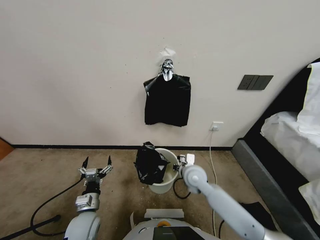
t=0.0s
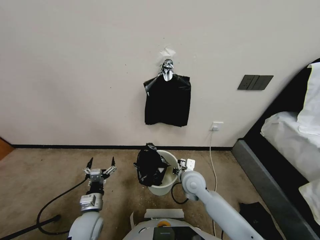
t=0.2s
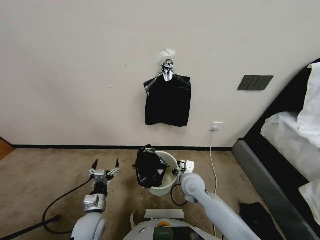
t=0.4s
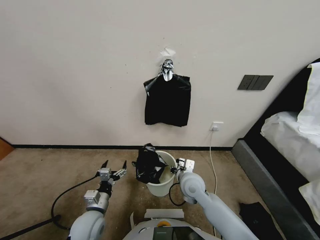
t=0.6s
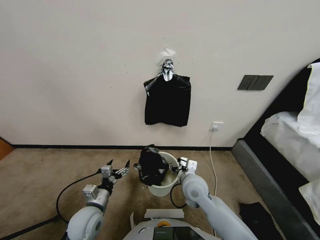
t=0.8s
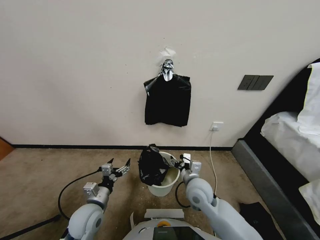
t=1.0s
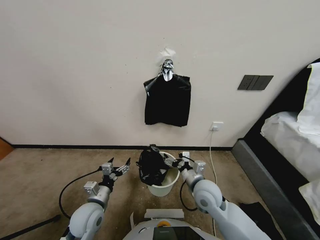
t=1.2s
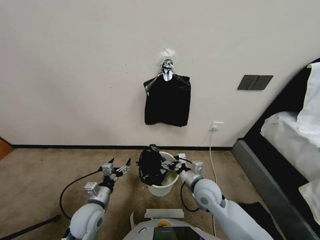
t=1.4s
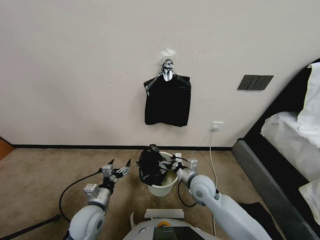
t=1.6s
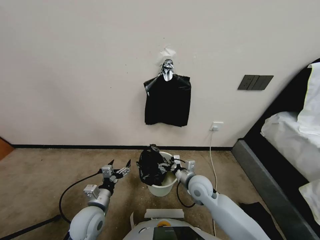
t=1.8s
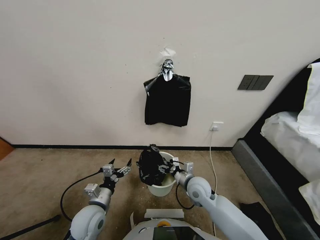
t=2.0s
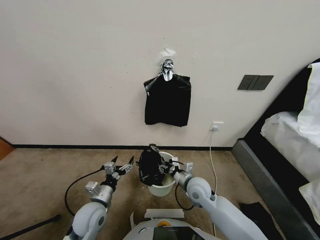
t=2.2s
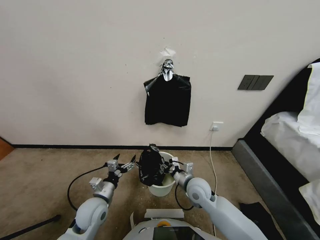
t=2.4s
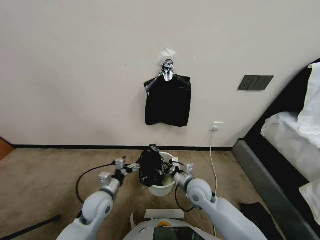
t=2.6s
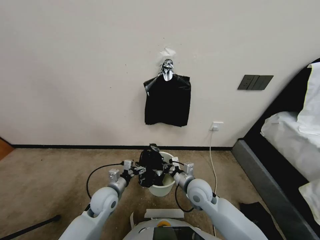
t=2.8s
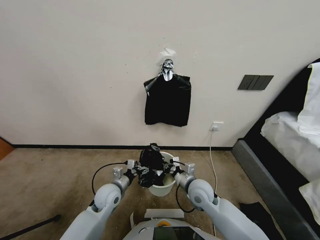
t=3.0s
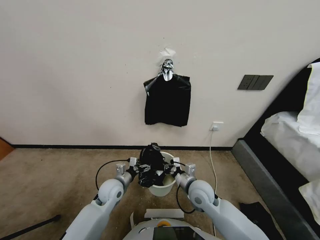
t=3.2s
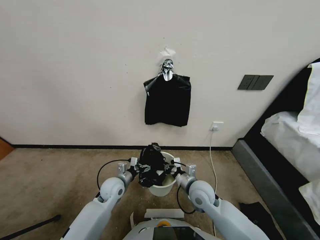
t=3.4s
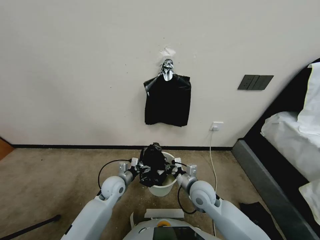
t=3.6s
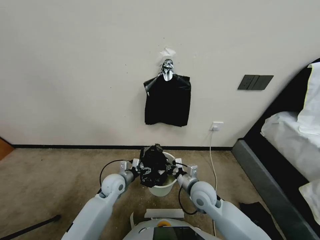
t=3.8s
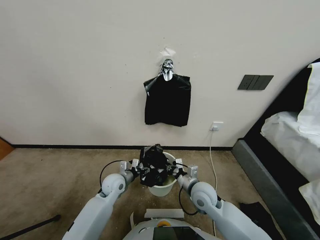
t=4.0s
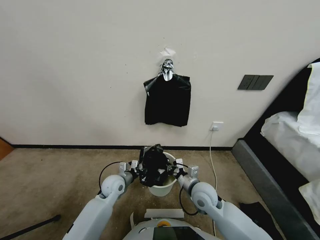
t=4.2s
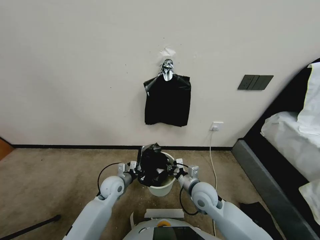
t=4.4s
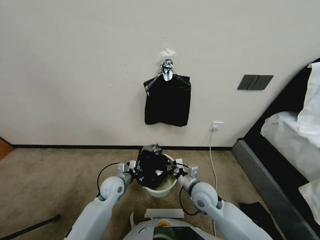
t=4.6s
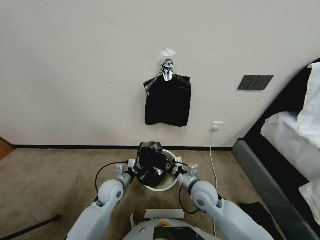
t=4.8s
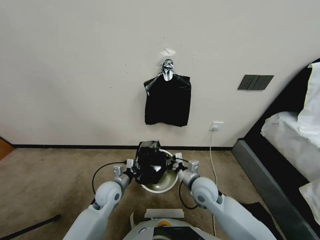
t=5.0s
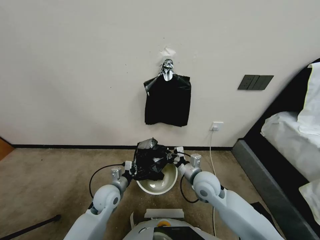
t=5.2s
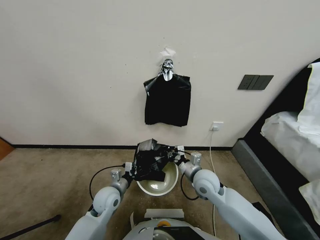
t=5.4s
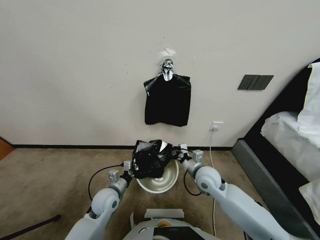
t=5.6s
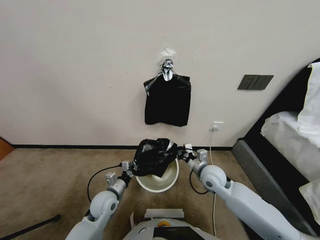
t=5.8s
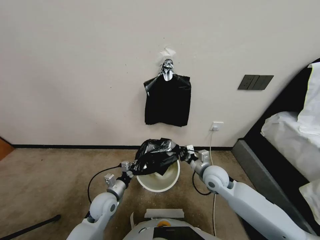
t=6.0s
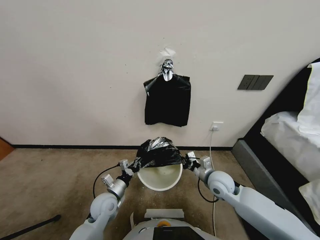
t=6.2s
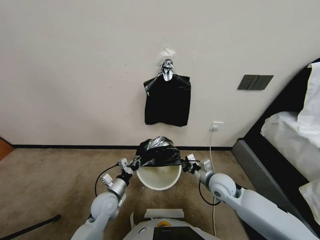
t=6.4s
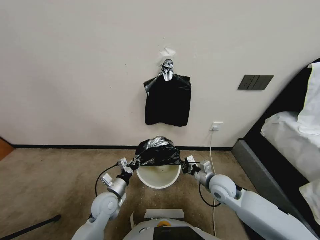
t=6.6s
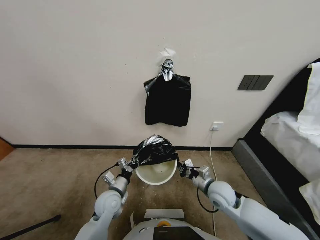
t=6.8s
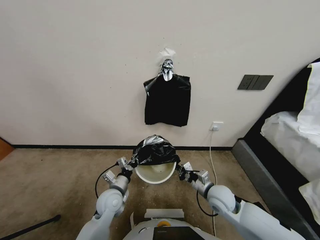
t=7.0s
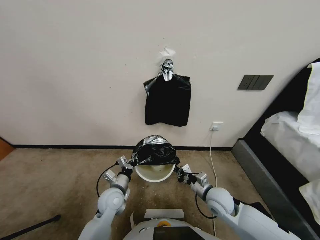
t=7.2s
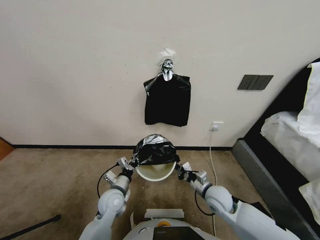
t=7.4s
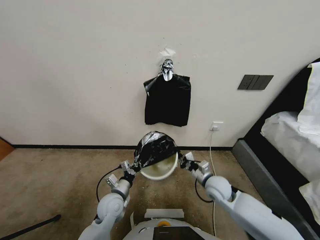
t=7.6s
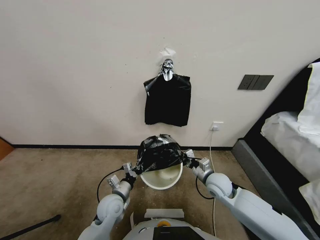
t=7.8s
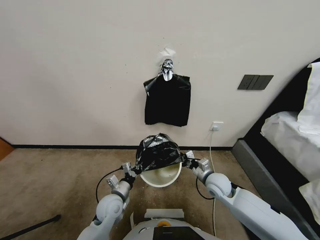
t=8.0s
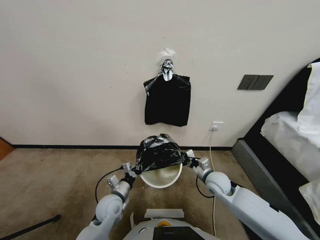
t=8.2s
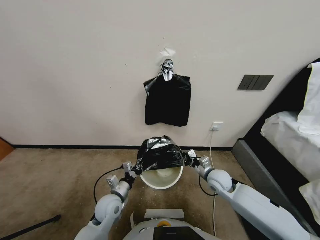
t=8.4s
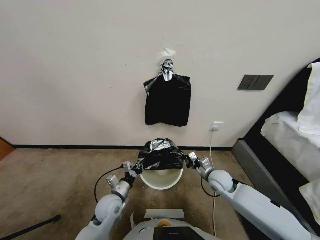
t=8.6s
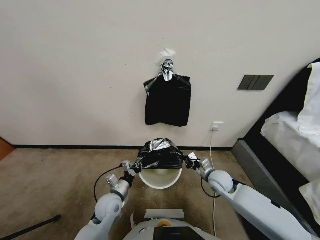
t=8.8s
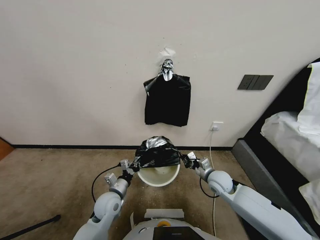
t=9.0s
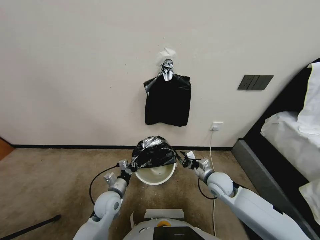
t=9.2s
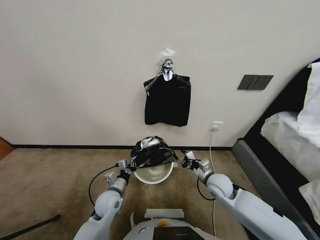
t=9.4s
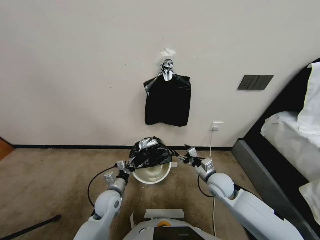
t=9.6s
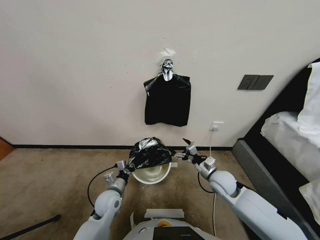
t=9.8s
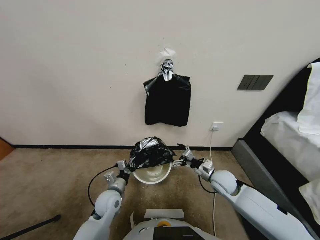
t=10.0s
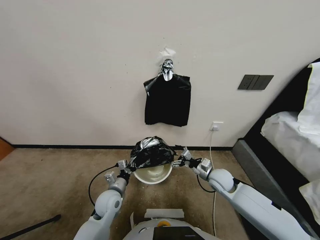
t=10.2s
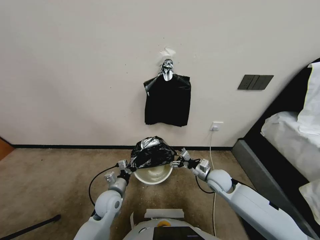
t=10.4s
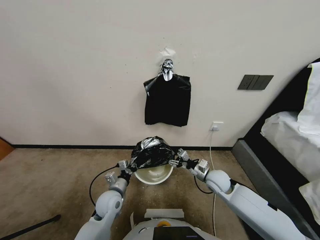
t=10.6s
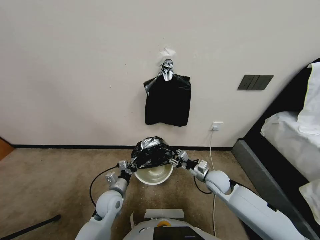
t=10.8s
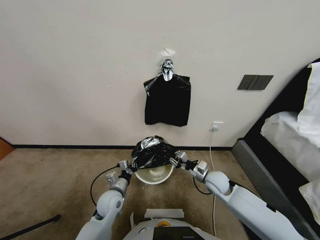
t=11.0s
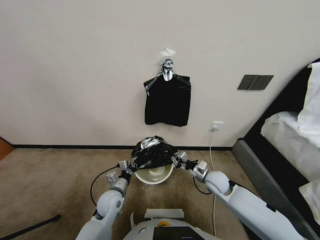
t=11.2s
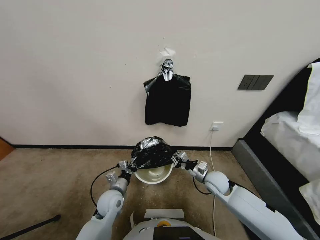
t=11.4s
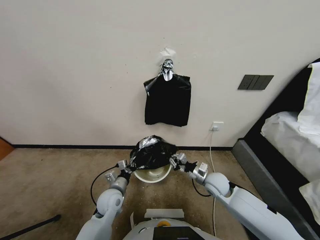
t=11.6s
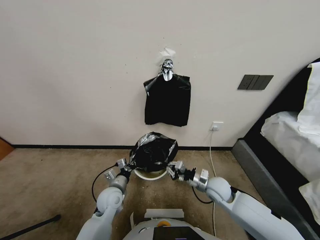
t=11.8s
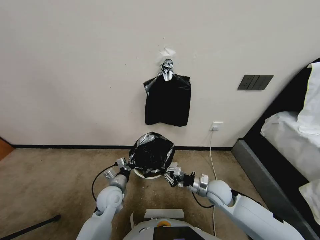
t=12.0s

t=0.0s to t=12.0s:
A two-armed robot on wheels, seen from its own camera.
Task of the whole recording: Place a trash bag onto the trash bin.
t=0.0s to t=1.6s: The right gripper opens its fingers.
t=1.6s to t=3.0s: The left gripper travels forward by some 10 cm; the right gripper closes up.
t=3.0s to t=4.4s: The left gripper closes up.
t=4.4s to t=6.0s: The left gripper is displaced backward by approximately 5 cm. Meanwhile the right gripper shifts roughly 5 cm to the right.
t=7.6s to t=9.0s: The grippers move only a little.
t=9.0s to t=10.4s: The right gripper opens up.
t=10.4s to t=12.0s: The right gripper moves about 5 cm, and closes.

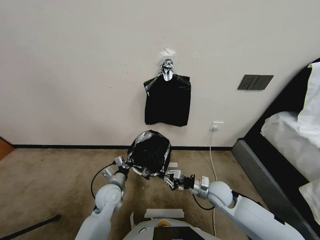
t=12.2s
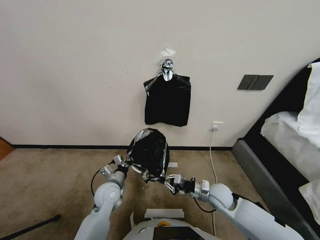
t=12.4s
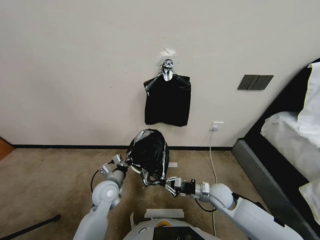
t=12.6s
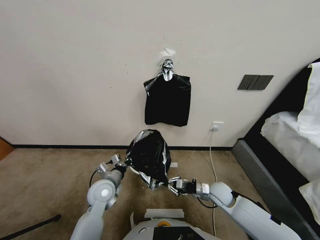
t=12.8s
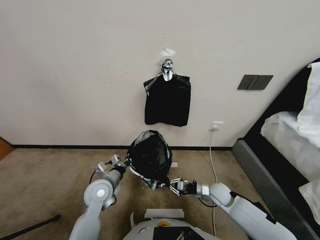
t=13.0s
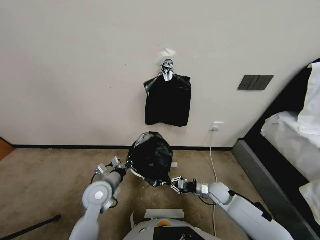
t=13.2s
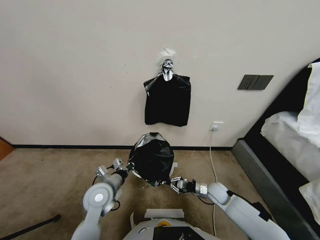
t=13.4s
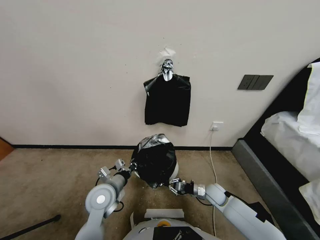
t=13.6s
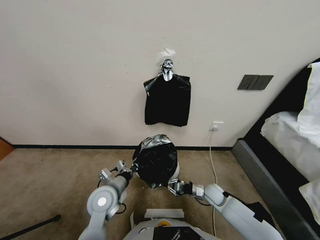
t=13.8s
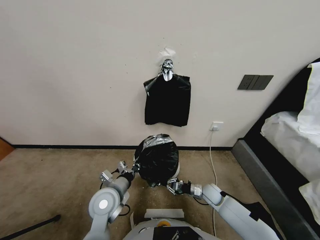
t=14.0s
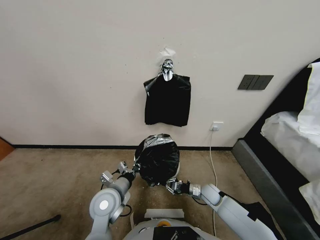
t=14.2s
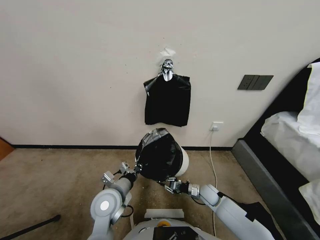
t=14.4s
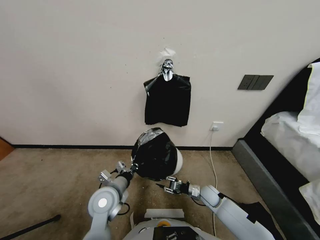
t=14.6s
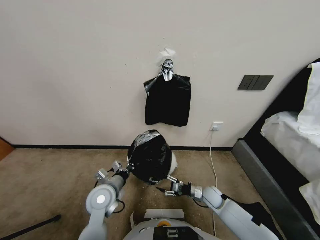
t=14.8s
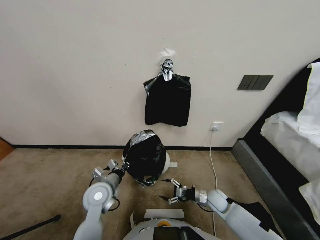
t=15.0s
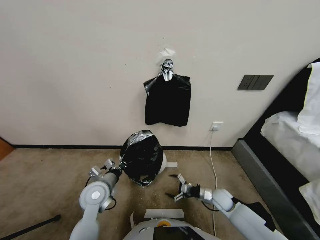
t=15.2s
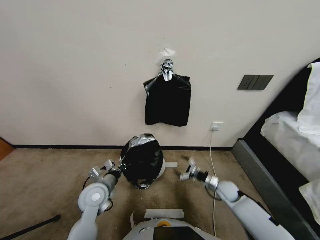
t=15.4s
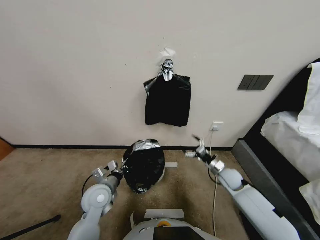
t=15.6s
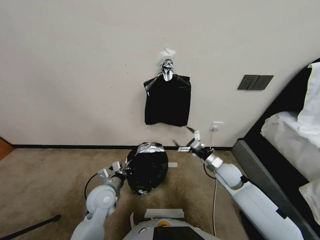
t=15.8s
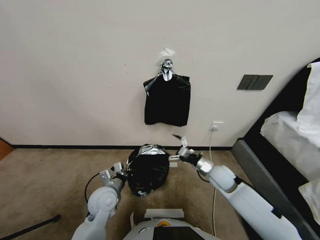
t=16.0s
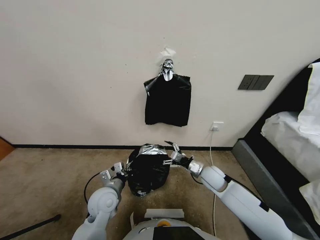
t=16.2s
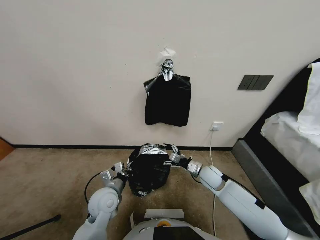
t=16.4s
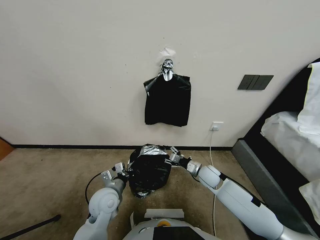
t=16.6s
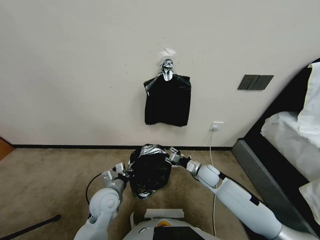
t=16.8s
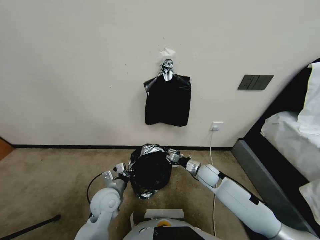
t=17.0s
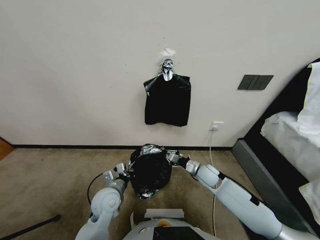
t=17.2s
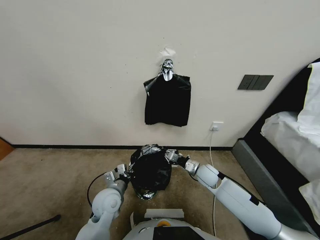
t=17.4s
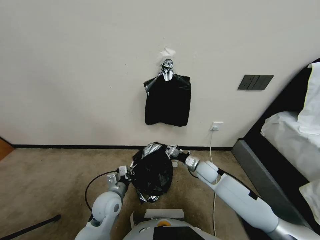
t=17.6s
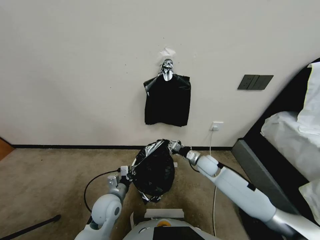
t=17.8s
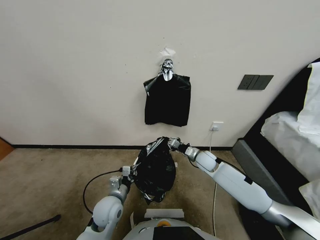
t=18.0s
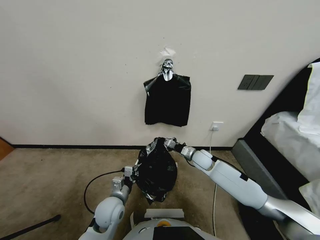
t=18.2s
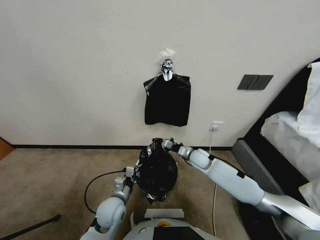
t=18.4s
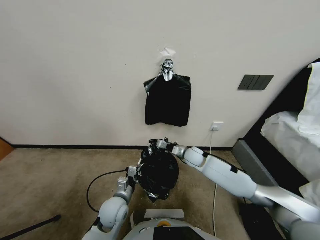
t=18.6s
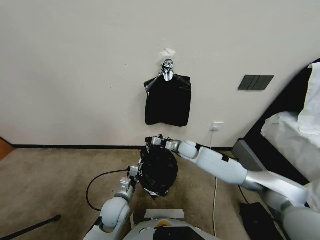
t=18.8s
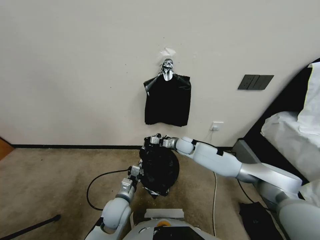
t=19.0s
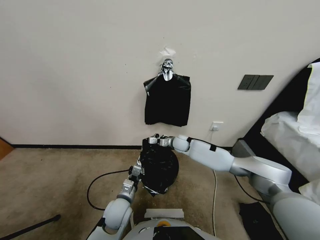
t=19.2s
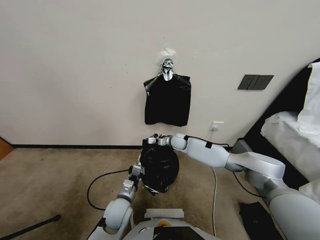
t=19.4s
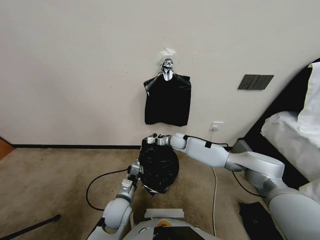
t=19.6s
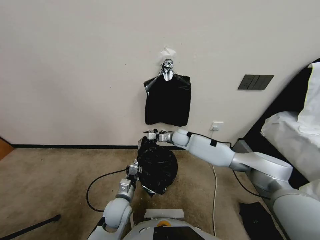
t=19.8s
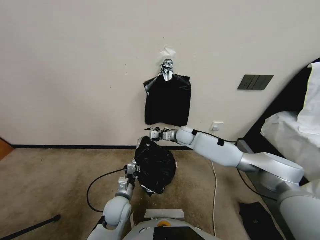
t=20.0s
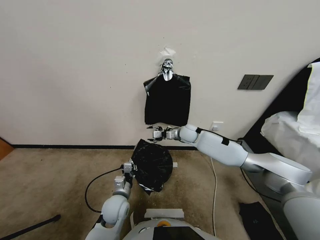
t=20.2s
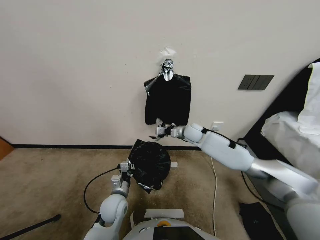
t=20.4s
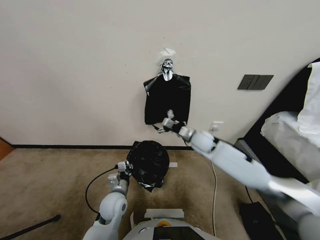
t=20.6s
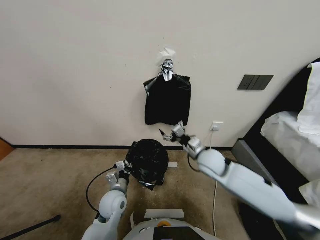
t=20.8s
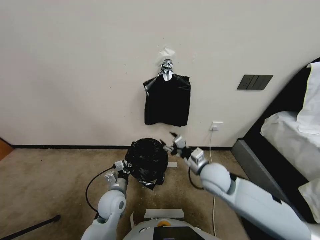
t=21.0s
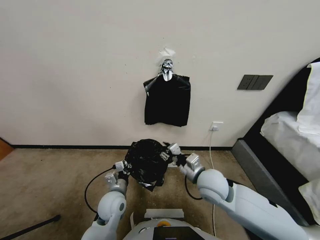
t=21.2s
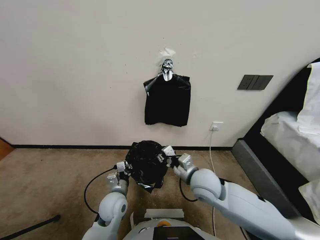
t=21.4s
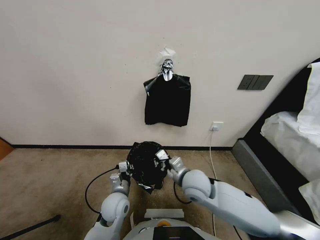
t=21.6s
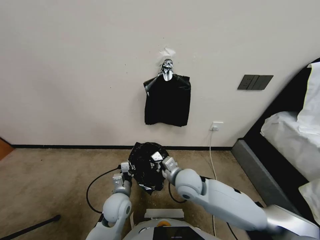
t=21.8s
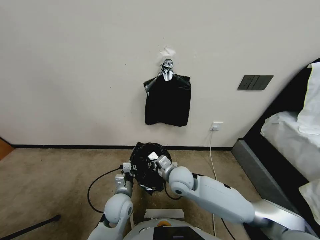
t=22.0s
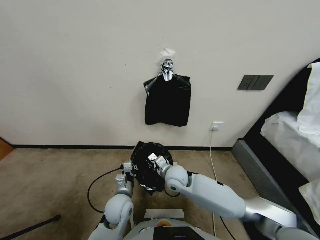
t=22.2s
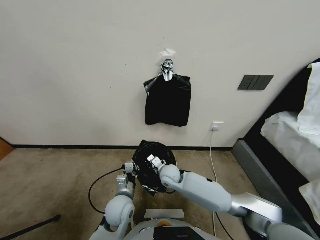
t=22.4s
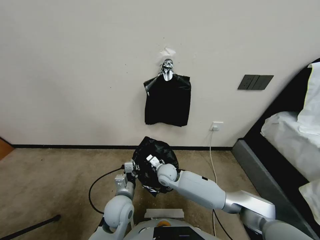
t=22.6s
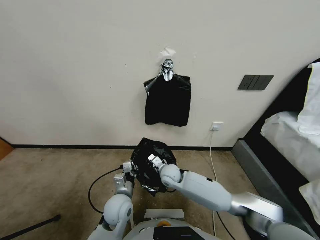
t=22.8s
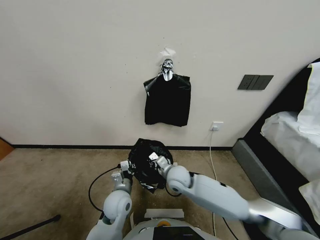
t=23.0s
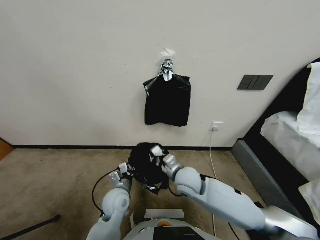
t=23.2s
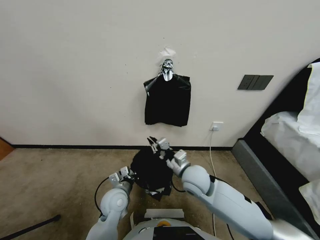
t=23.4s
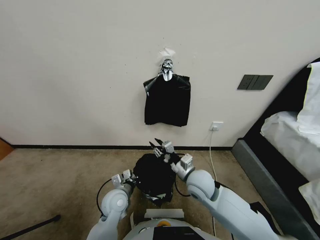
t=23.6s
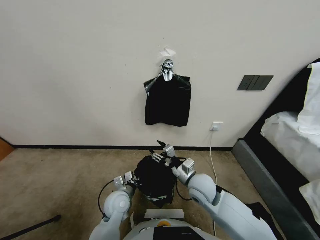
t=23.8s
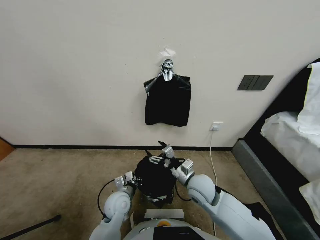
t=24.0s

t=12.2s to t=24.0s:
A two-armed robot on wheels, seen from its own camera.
Task of the whole recording: Place a trash bag onto the trash bin.
t=12.2s to t=13.6s: The left gripper is displaced upward by approximately 5 cm. The right gripper goes some 10 cm downward.
t=13.6s to t=15.2s: The right gripper goes approximately 5 cm to the right, and opens its fingers.
t=15.2s to t=16.6s: The right gripper heads to the left, upward and forward, covering some 15 cm, and closes its fingers.
t=16.6s to t=18.2s: The right gripper shifts approximately 5 cm forward, and closes.
t=18.2s to t=19.6s: The right gripper heads forward and to the left, covering roughly 15 cm.
t=19.6s to t=21.0s: The right gripper goes roughly 25 cm backward, and opens, then closes again.
t=21.0s to t=22.6s: The right gripper moves downward, to the left and forward, some 20 cm, and closes its fingers.
t=22.6s to t=24.0s: The right gripper goes about 15 cm to the right, backward and upward, and opens up.
